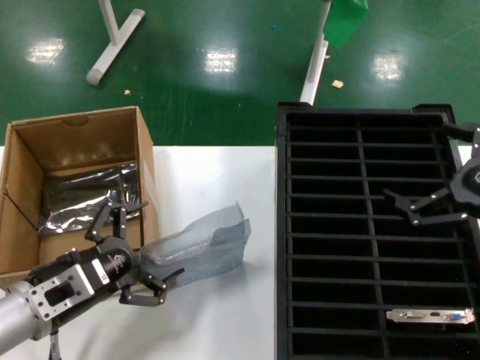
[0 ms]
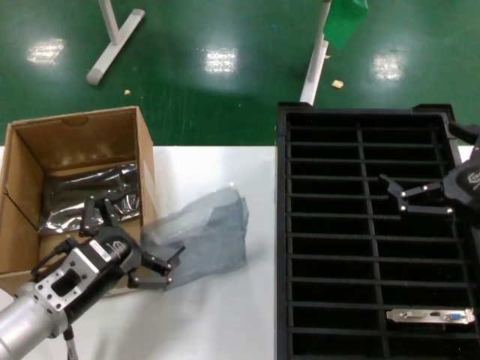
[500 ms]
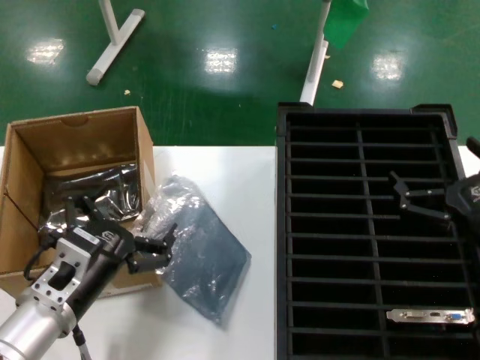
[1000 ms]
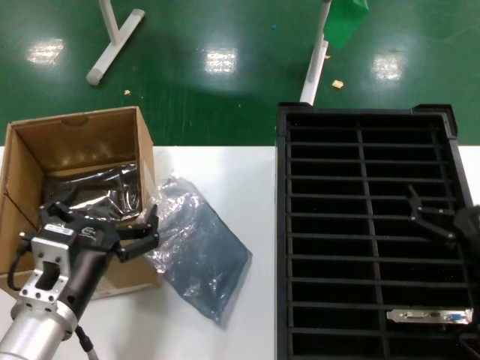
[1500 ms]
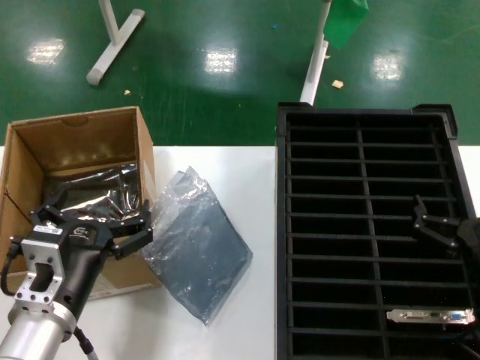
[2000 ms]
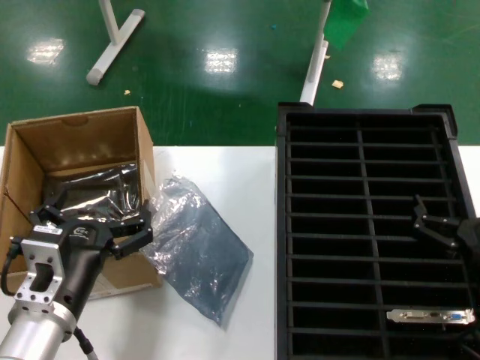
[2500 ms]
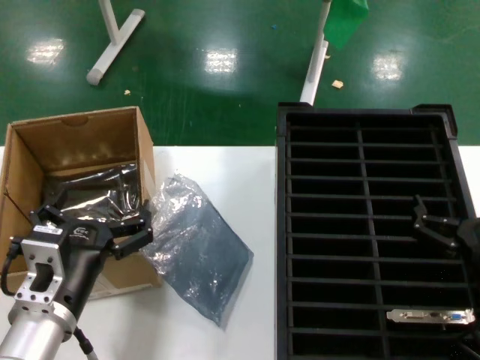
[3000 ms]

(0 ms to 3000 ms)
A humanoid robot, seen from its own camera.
Task of the whole recording: take out graphics card from box remove packaging put into black container.
0 ms - 1500 ms: The left hand is displaced to the right by approximately 5 cm. The right hand shifts about 15 cm downward and to the left.
1500 ms - 3000 ms: The hands stay close to where they were, moving slightly.
